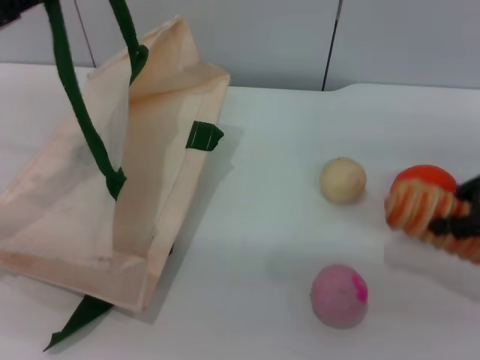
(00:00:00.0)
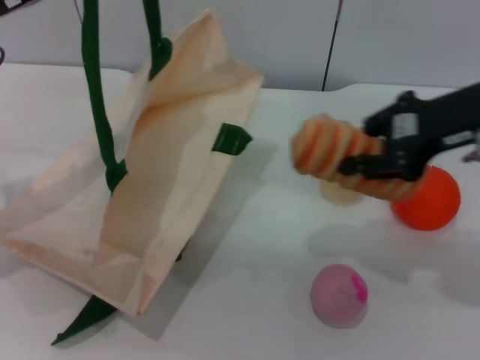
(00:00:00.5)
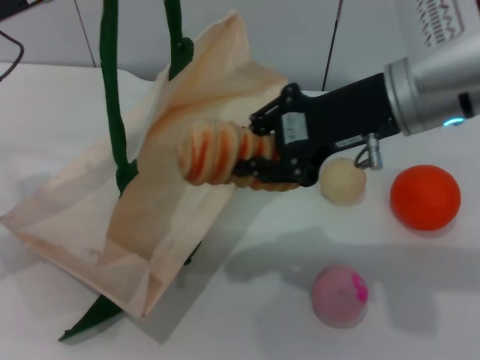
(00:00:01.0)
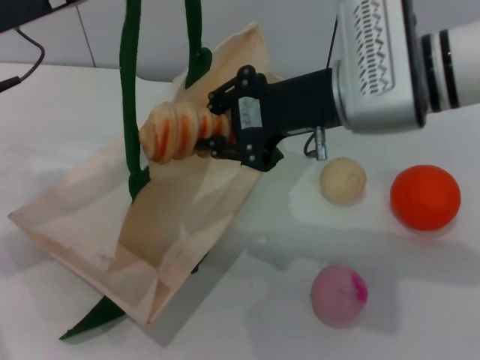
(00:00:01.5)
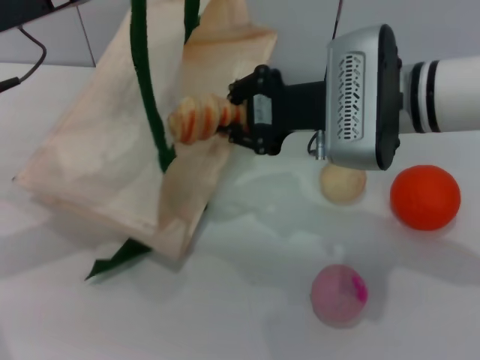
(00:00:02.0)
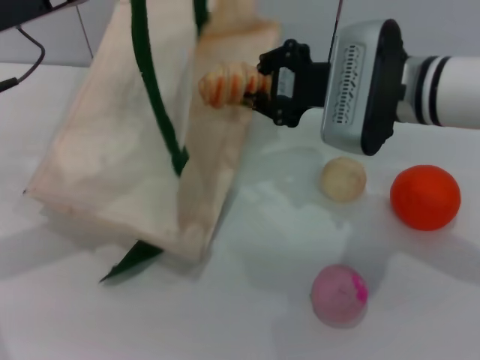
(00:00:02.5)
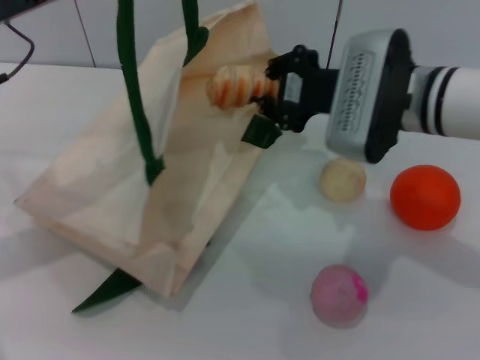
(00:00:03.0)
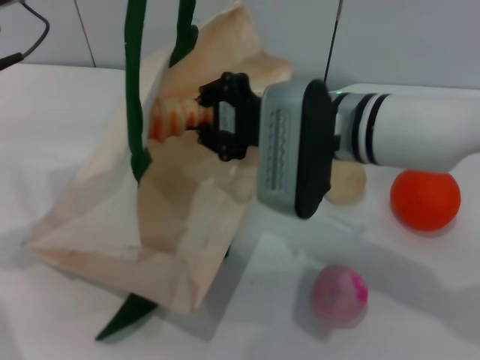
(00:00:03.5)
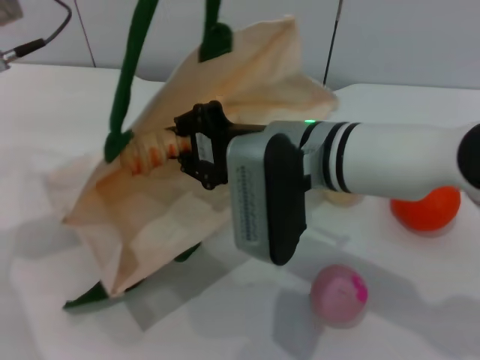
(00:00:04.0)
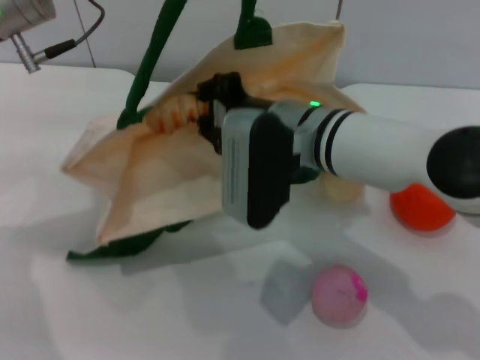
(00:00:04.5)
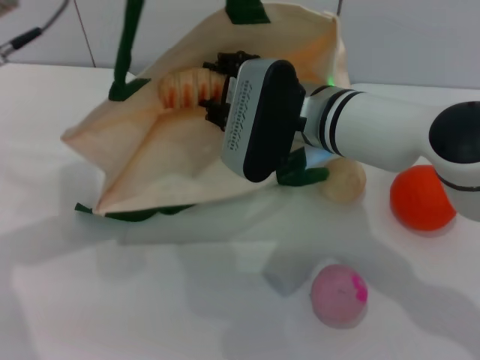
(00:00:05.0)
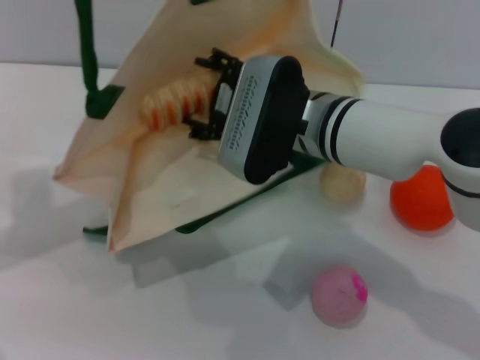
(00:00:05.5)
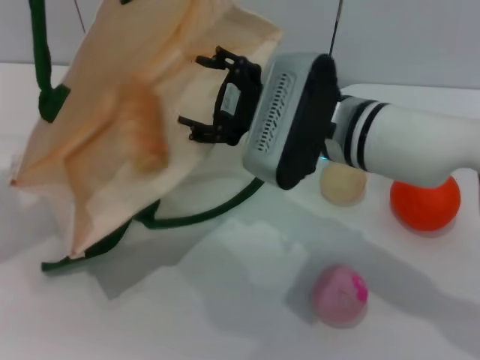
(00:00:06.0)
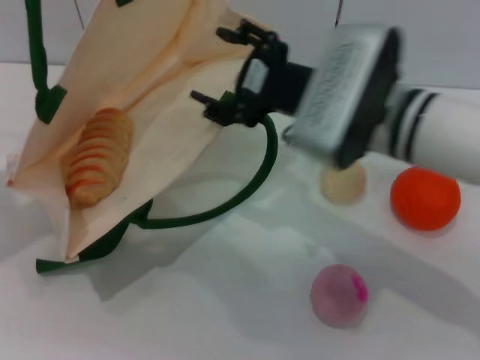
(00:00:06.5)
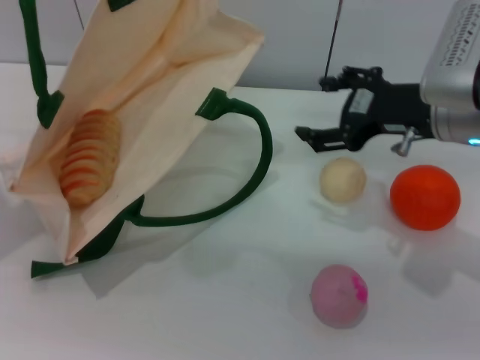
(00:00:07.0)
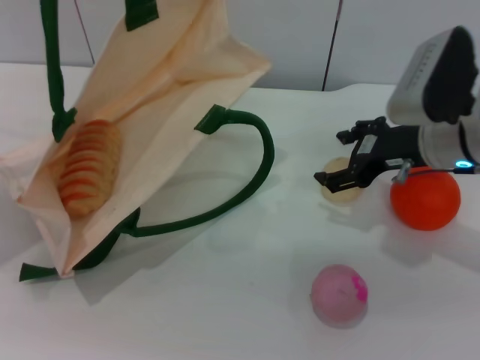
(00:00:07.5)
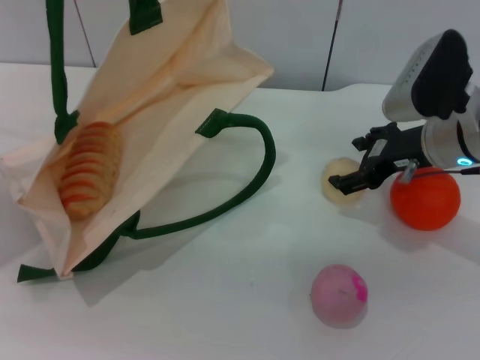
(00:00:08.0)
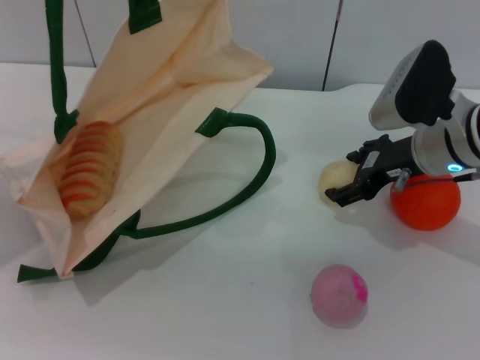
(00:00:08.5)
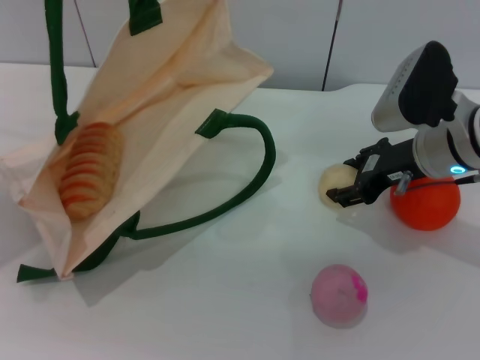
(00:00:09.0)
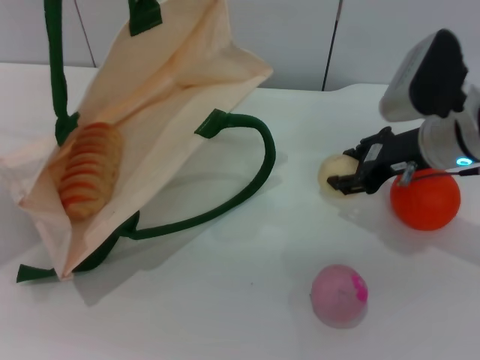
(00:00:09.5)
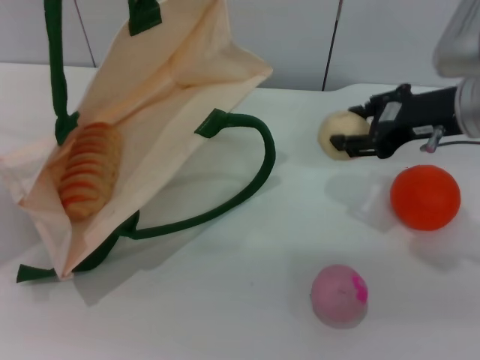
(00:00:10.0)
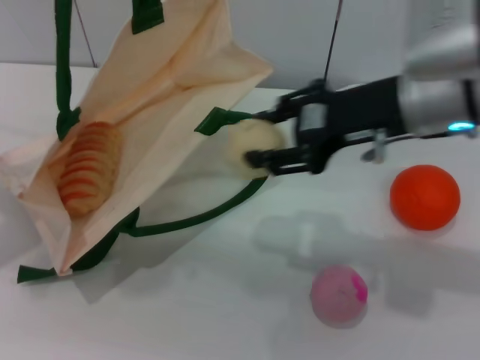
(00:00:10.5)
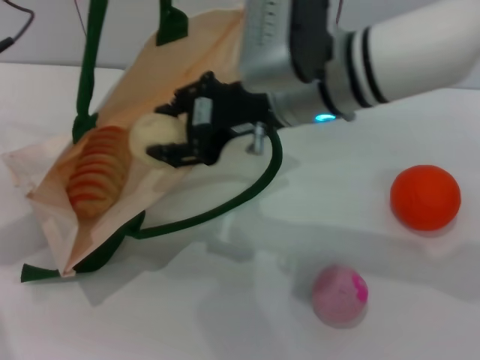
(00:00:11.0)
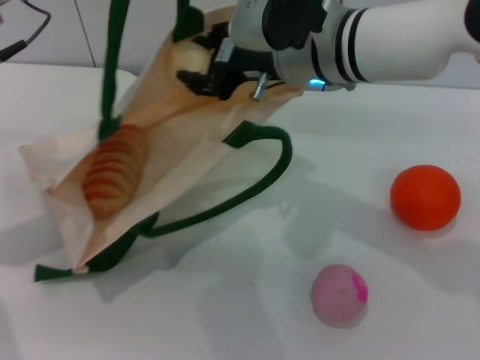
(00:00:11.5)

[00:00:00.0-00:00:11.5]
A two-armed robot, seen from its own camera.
Task of the whole recording: pick up the bread and egg yolk pastry from the table and place it in the white handbag.
Step, 00:00:00.5 to 00:00:06.5: Place the bread into the woven bag with the right gripper.
Step, 00:00:07.0 to 00:00:10.0: Pick up the egg yolk pastry with the right gripper.
00:00:00.0 to 00:00:02.0: The right gripper goes approximately 20 cm to the left; the left gripper heads to the right, covering roughly 5 cm.
00:00:02.0 to 00:00:04.0: The right gripper travels to the left by about 5 cm.
00:00:04.0 to 00:00:06.0: The left gripper is displaced to the left by roughly 10 cm. Meanwhile the right gripper opens.
00:00:06.0 to 00:00:07.5: The right gripper shifts approximately 15 cm to the right.
00:00:07.5 to 00:00:09.5: The right gripper closes up.
00:00:09.5 to 00:00:11.5: The left gripper moves to the right, about 5 cm; the right gripper heads to the left and upward, covering about 15 cm.

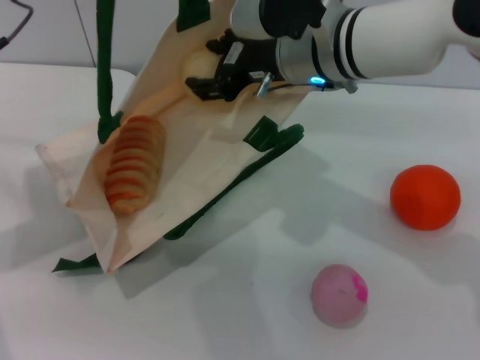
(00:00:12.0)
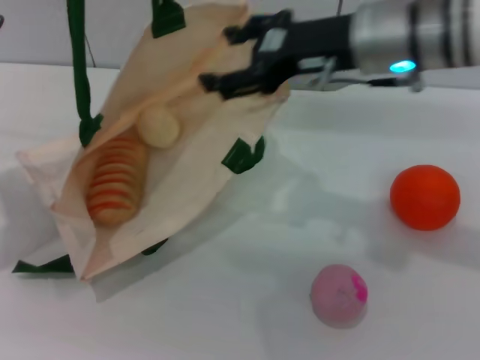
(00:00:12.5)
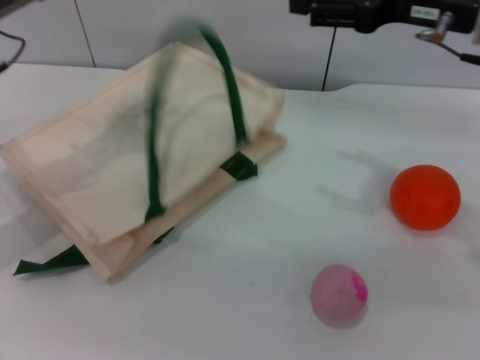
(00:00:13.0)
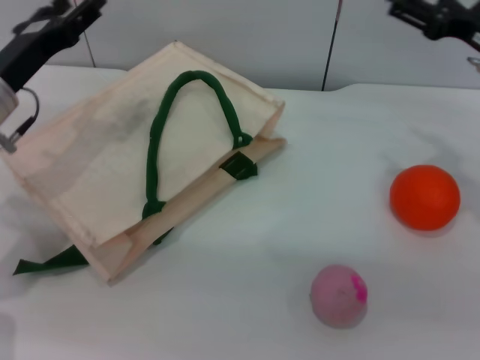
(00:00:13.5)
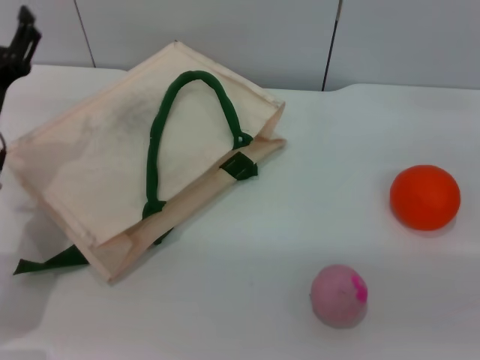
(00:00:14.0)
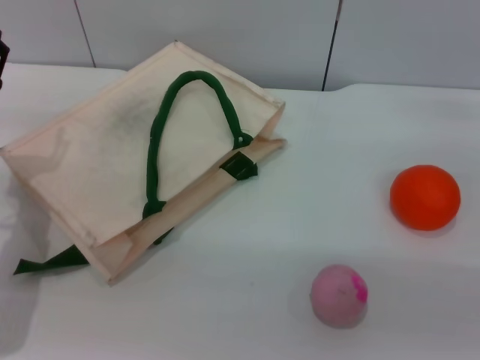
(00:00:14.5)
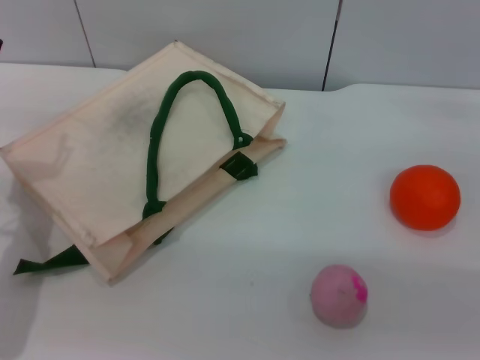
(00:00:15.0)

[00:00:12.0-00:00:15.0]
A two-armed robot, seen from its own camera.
Task of the whole recording: pick up the bread and egg yolk pastry from the table and place it in the white handbag.
Step, 00:00:13.0 to 00:00:13.5: Lower the woven bag with the left gripper to close it.
00:00:12.0 to 00:00:13.5: The right gripper is displaced to the right by some 20 cm, and opens its fingers. Meanwhile the left gripper goes some 10 cm downward, and opens.
00:00:13.5 to 00:00:15.0: The right gripper travels downward and to the right by approximately 10 cm, while the left gripper shifts some 10 cm backward.
